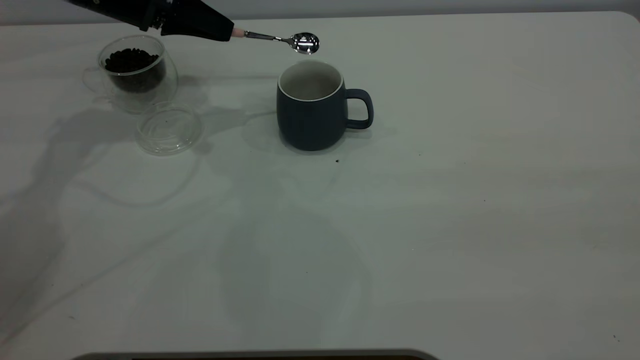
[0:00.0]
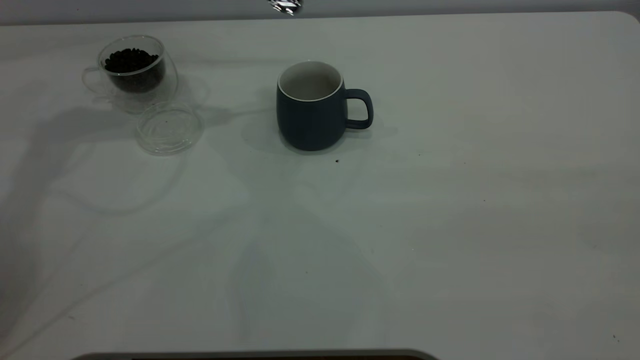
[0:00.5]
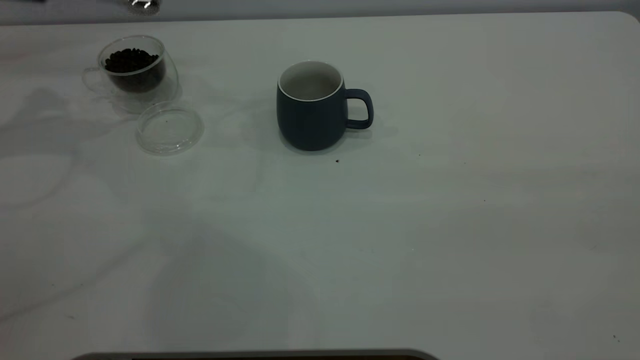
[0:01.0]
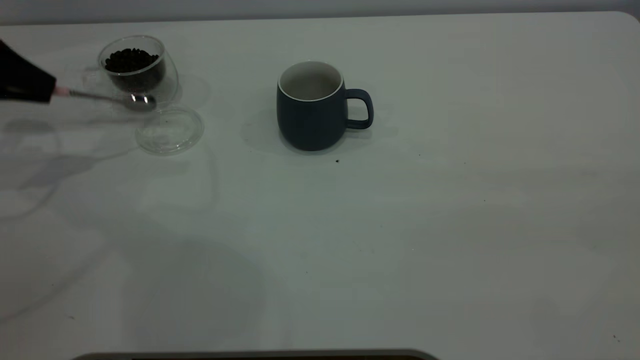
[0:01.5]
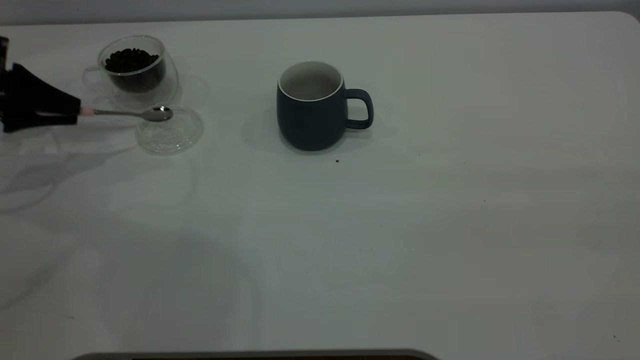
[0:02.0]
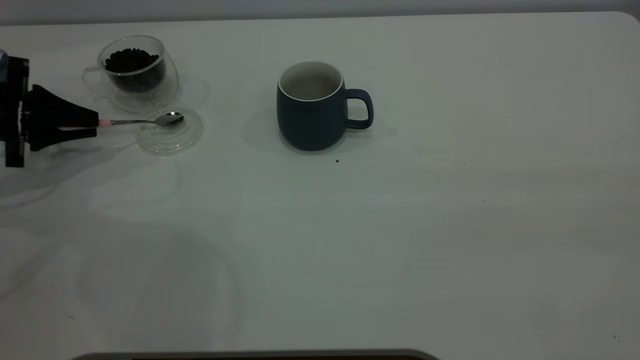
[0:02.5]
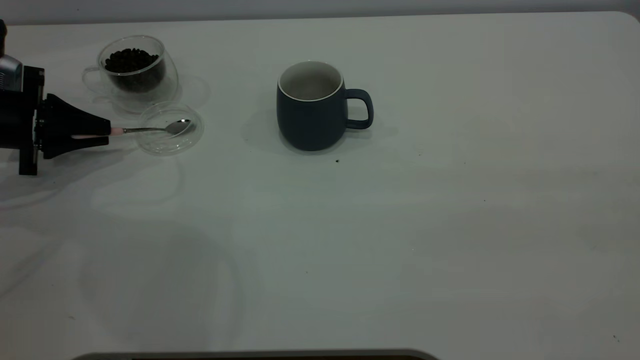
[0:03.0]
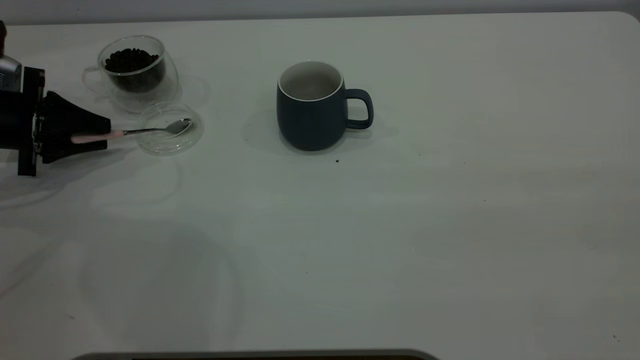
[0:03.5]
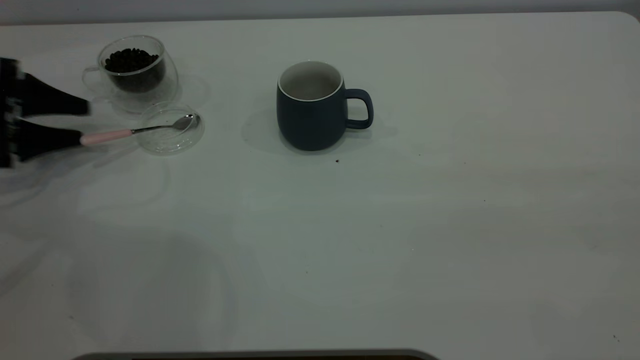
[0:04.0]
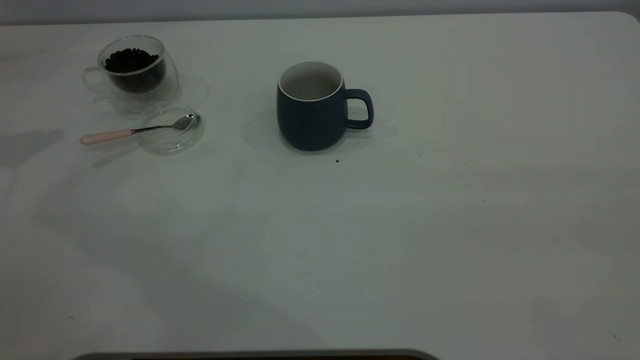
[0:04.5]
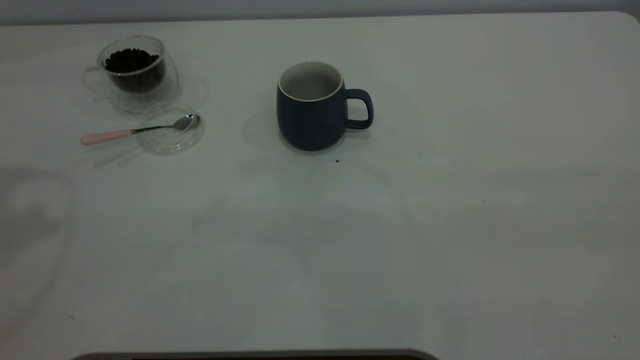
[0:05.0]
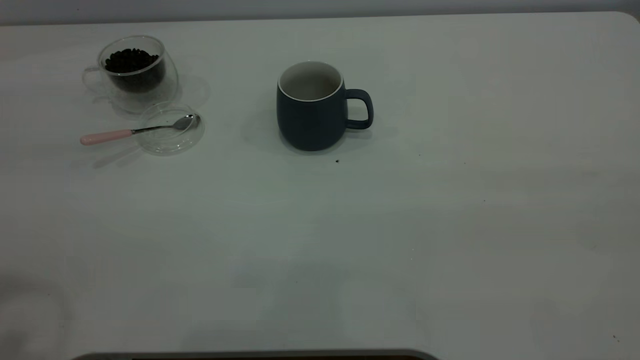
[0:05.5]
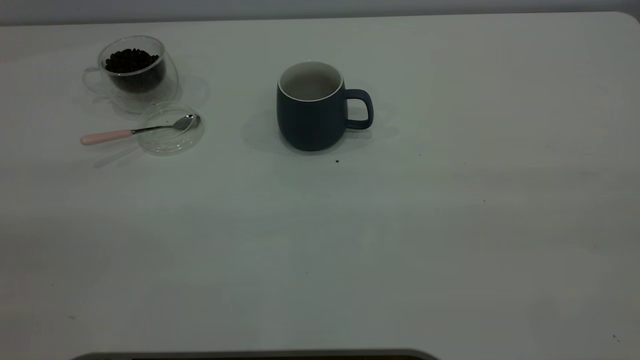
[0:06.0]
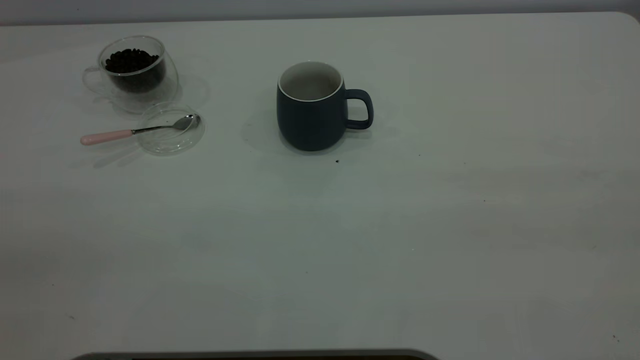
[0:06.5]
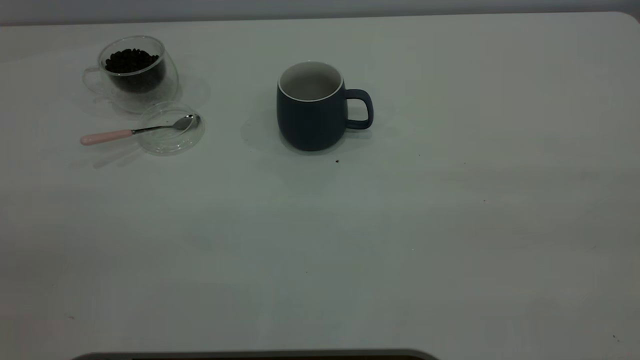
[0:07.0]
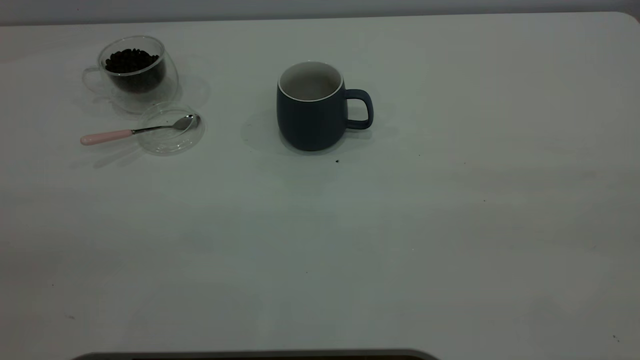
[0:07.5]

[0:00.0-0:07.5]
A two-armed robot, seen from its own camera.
Task of the whole recording: the right gripper place the grey cup in the center of the table, the left gripper take the pink spoon from the cup lid and scoop out the coffee beans from the coffee cup and put them into the grey cup, the left gripper put the spoon back into the cup lid.
Step, 0:00.0 to 0:04.0: Place the spoon back in its original place.
0:00.0 to 0:02.0: The left gripper moves to the left and backward, some 20 cm.
0:02.0 to 0:04.0: The left gripper opens its fingers.
0:04.0 to 0:05.5: The left gripper moves upward, backward and to the right, about 40 cm.
